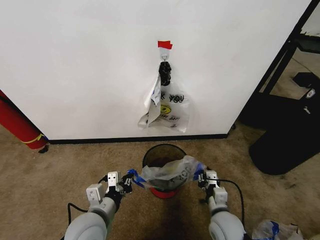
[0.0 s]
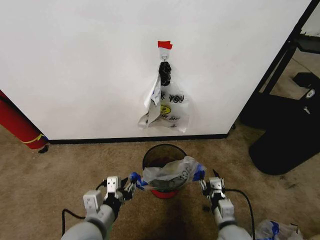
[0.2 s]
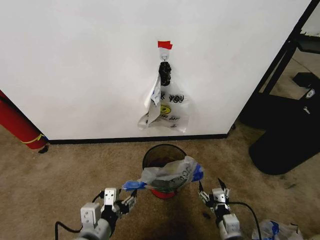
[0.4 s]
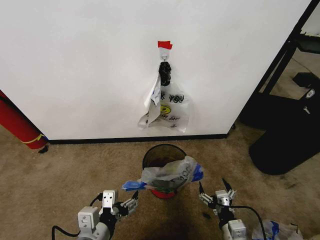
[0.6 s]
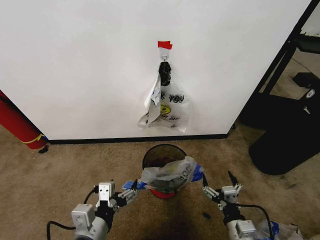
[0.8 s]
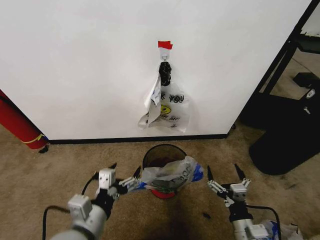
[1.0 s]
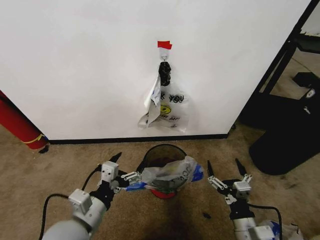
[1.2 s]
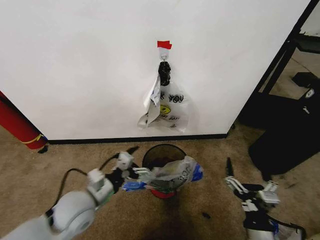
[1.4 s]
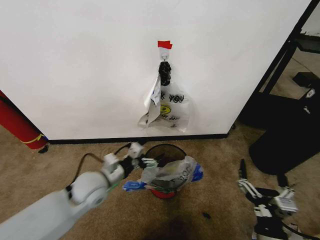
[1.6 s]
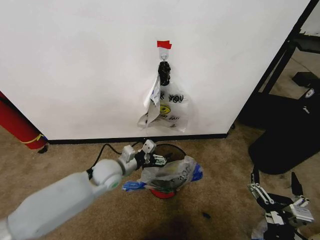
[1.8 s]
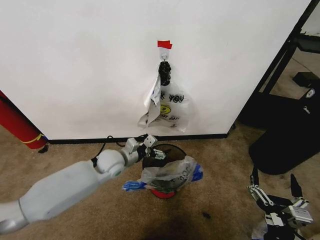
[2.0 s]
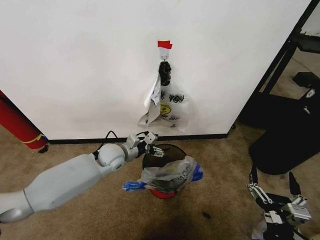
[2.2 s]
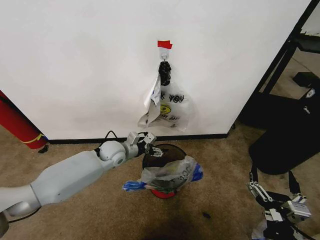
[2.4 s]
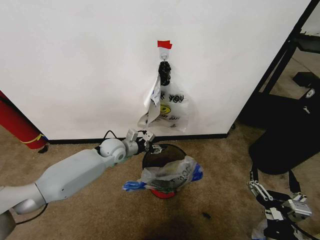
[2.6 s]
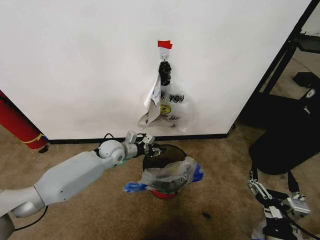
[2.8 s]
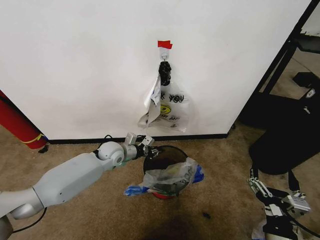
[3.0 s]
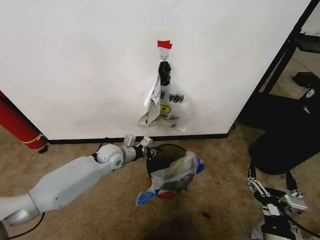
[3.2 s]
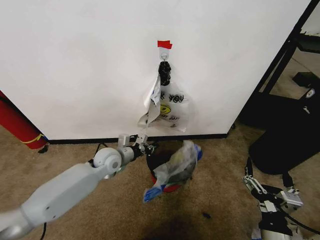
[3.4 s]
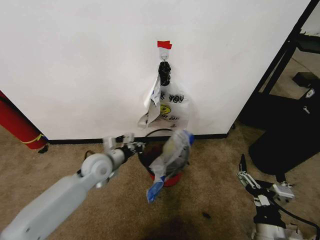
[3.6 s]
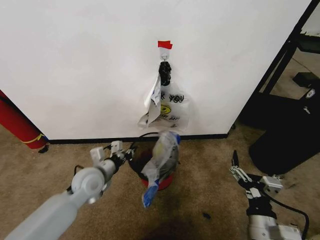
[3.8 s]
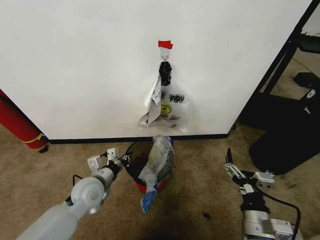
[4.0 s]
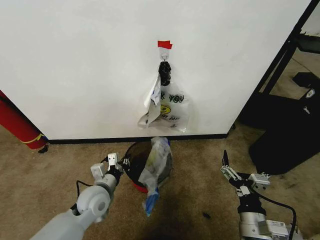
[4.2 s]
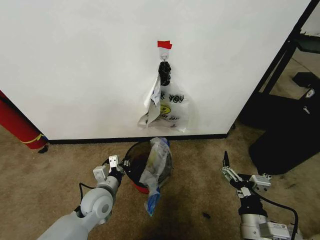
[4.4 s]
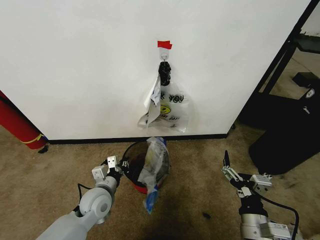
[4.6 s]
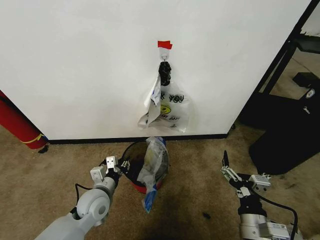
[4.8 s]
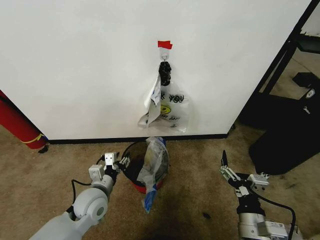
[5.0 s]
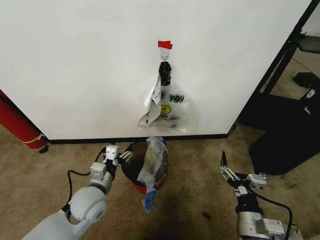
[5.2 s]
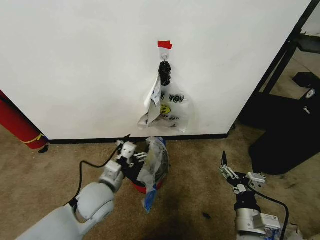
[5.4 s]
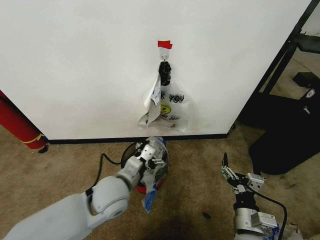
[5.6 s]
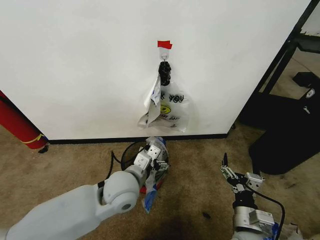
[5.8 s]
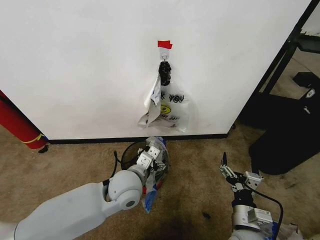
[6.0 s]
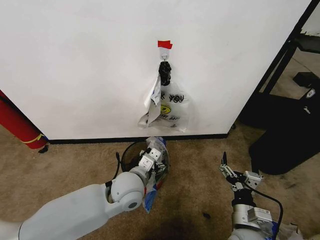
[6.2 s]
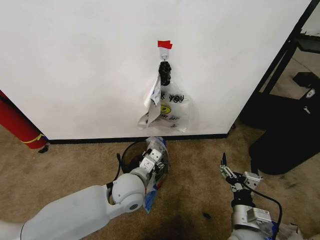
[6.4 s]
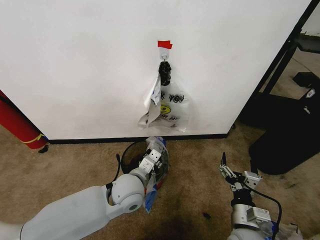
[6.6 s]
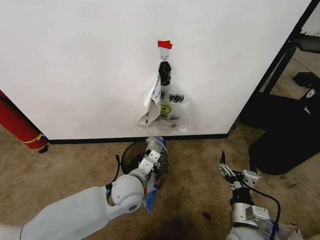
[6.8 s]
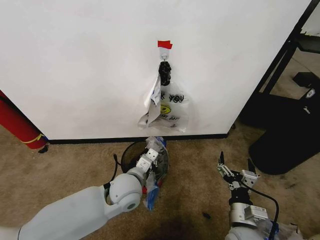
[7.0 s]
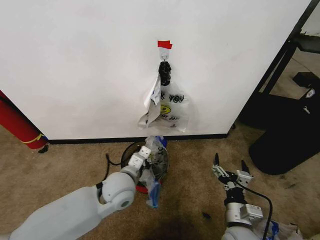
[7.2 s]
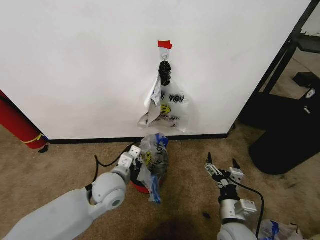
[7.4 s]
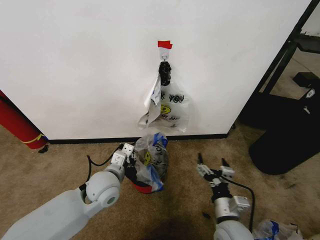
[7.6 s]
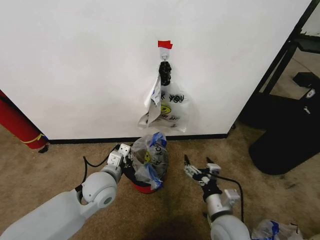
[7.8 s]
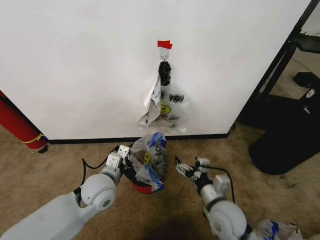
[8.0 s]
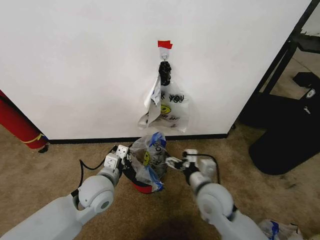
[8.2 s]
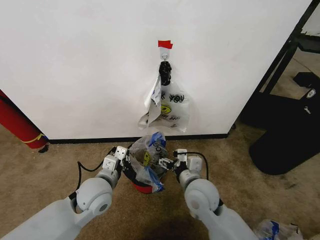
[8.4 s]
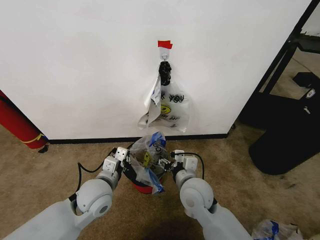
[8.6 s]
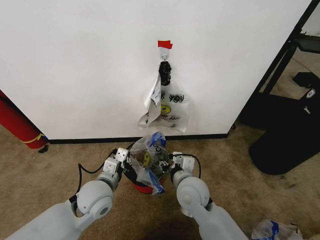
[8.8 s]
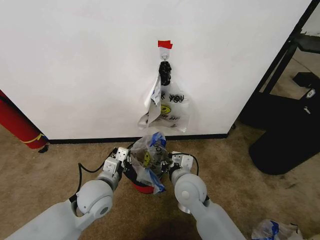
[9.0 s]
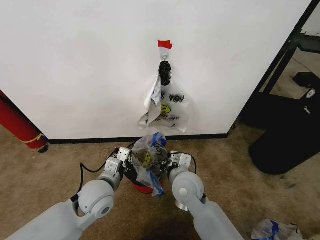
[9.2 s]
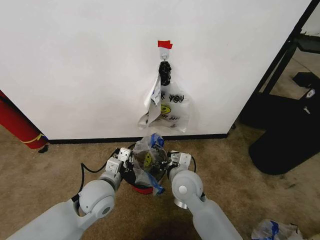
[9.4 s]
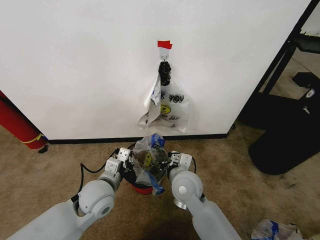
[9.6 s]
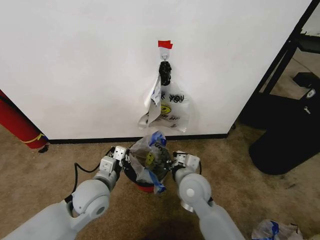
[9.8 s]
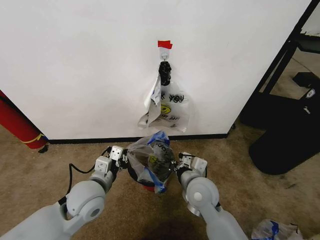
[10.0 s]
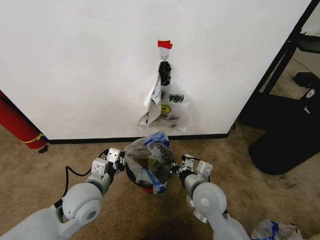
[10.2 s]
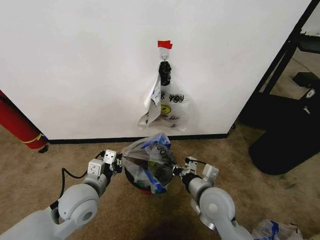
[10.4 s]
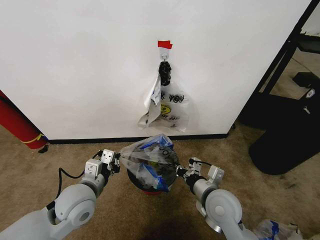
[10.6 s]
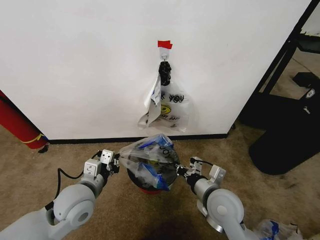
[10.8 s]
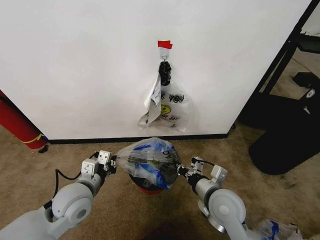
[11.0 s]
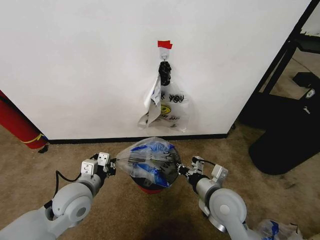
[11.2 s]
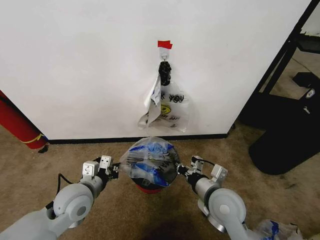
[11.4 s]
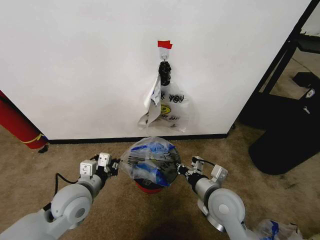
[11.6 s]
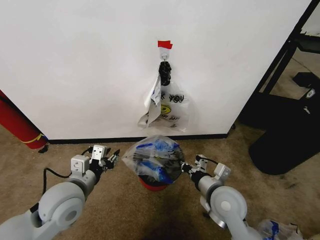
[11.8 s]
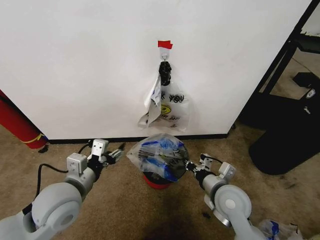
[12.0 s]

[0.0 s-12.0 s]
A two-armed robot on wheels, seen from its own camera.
Task of the whole recording: Pick up the garbage bag from the wall and place it over the trash bin.
0.0 to 1.6 s: The left gripper moves forward, some 10 cm, and opens up. The right gripper goes some 15 cm backward, upward and to the right, and opens its fingers.
1.6 to 3.0 s: The left gripper moves forward, some 15 cm, and closes up.
3.0 to 4.4 s: The left gripper moves backward, about 15 cm; the right gripper ends up some 5 cm from where it was.
4.4 to 6.0 s: The left gripper heads to the right and upward, covering some 15 cm, and opens up.
6.0 to 7.6 s: The left gripper goes about 5 cm to the left, and closes.
7.6 to 9.0 s: The right gripper heads forward, to the left and upward, covering about 15 cm, and closes.
9.0 to 10.4 s: The right gripper moves to the right, some 5 cm.
10.4 to 12.0 s: The left gripper goes about 5 cm upward, and opens.

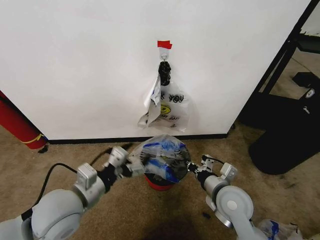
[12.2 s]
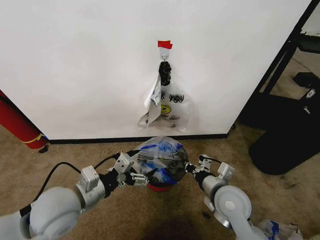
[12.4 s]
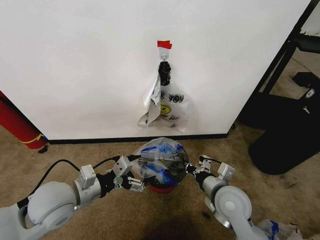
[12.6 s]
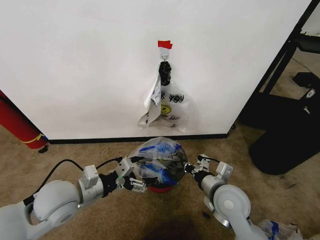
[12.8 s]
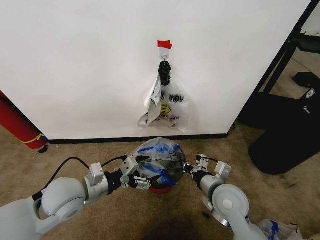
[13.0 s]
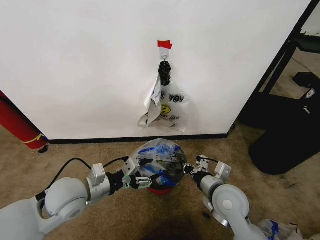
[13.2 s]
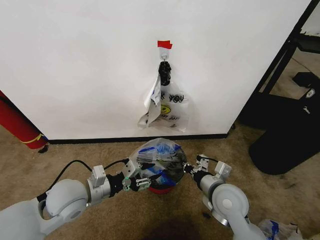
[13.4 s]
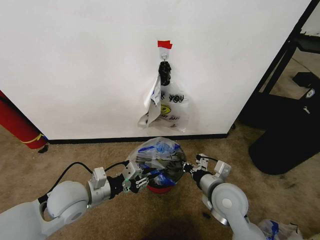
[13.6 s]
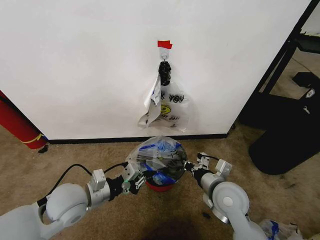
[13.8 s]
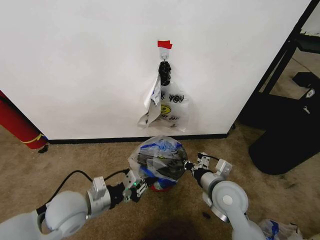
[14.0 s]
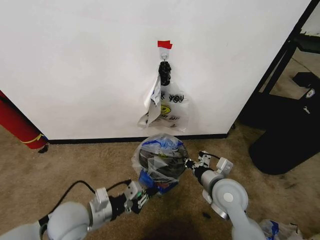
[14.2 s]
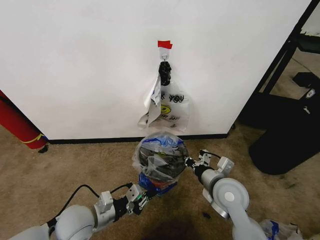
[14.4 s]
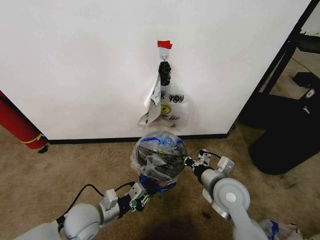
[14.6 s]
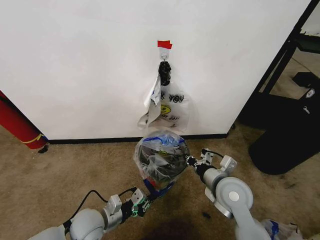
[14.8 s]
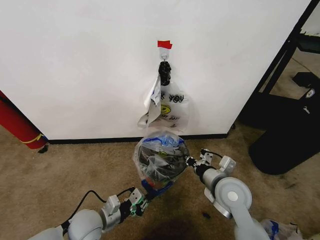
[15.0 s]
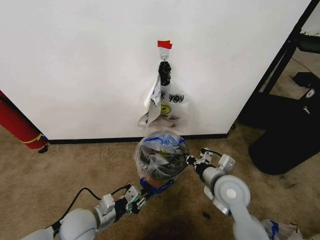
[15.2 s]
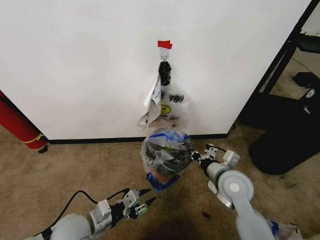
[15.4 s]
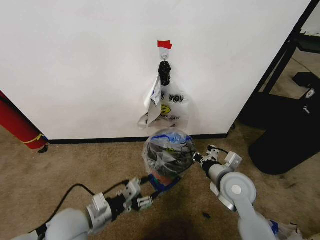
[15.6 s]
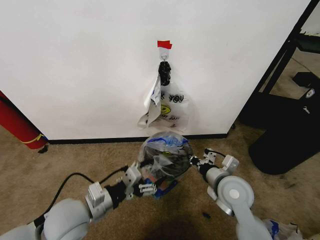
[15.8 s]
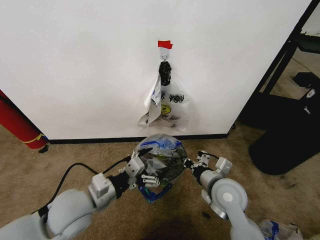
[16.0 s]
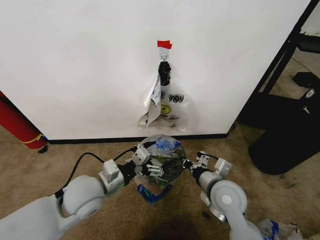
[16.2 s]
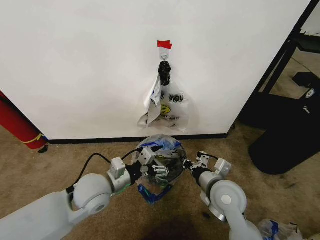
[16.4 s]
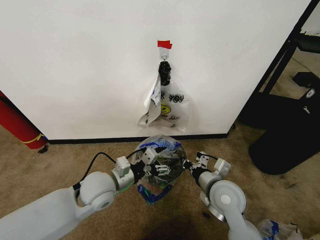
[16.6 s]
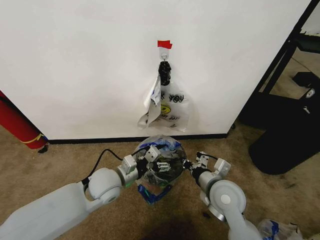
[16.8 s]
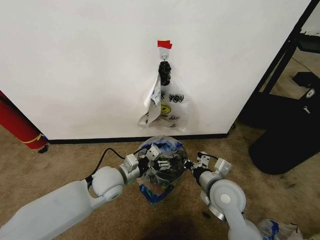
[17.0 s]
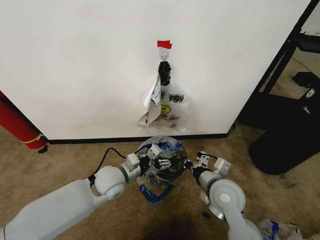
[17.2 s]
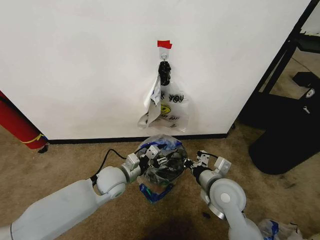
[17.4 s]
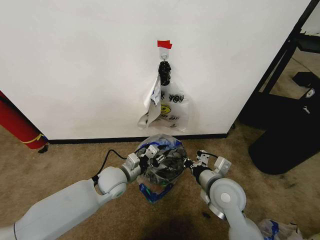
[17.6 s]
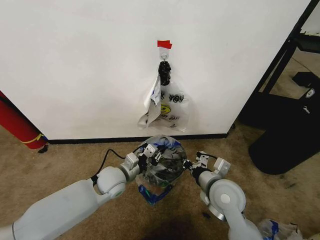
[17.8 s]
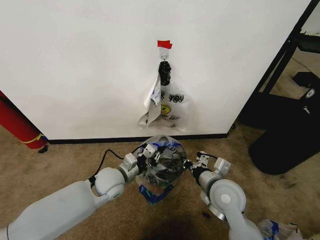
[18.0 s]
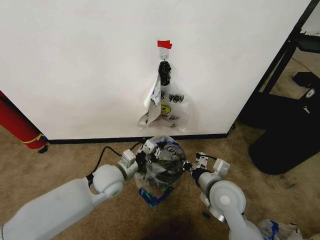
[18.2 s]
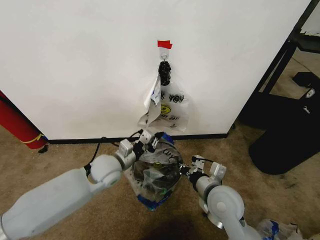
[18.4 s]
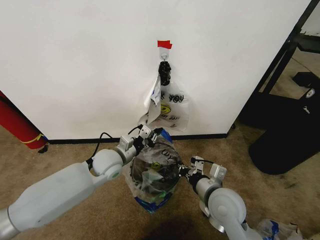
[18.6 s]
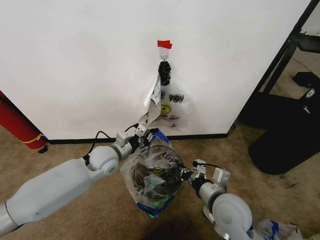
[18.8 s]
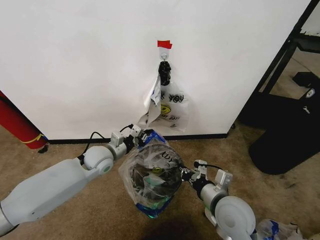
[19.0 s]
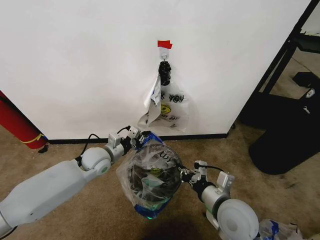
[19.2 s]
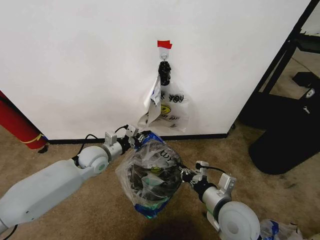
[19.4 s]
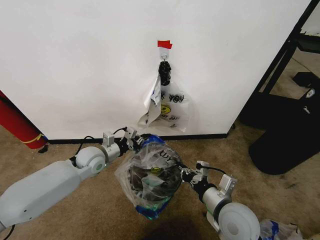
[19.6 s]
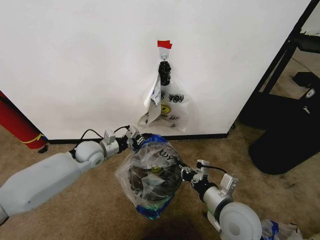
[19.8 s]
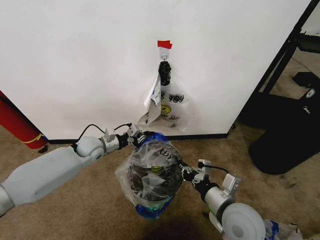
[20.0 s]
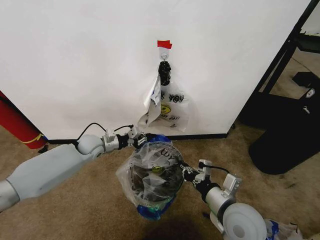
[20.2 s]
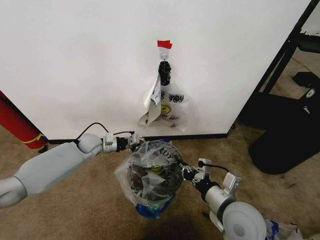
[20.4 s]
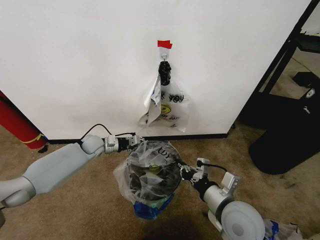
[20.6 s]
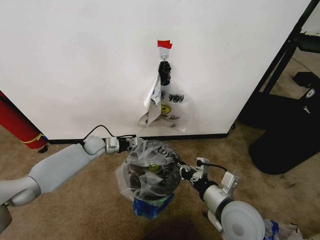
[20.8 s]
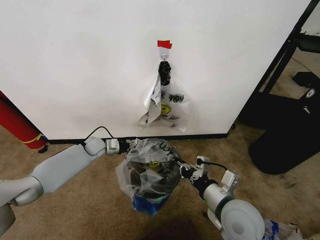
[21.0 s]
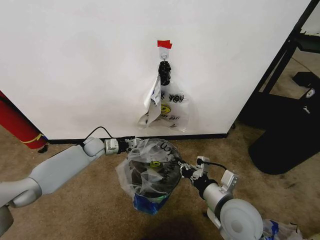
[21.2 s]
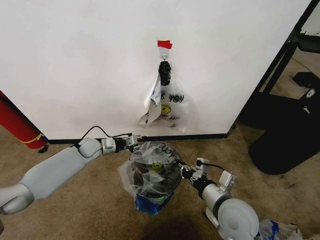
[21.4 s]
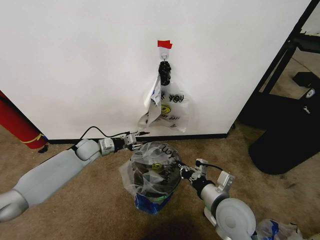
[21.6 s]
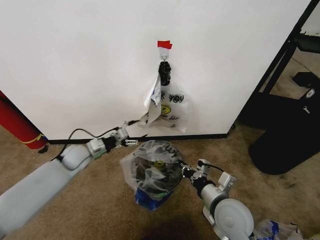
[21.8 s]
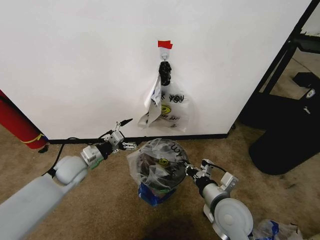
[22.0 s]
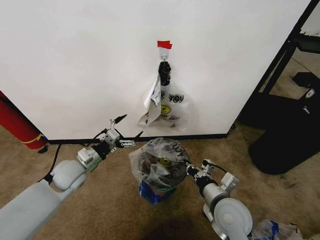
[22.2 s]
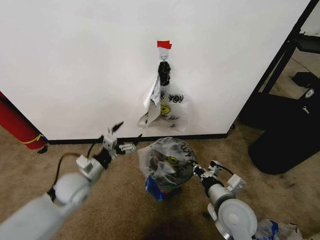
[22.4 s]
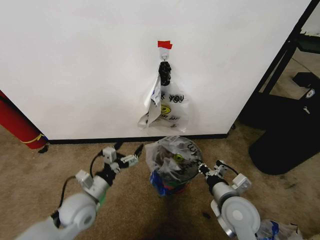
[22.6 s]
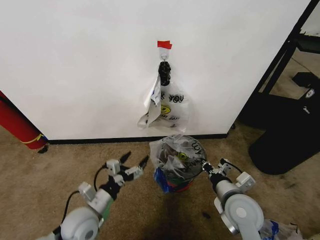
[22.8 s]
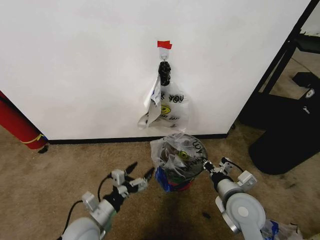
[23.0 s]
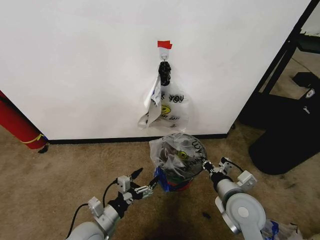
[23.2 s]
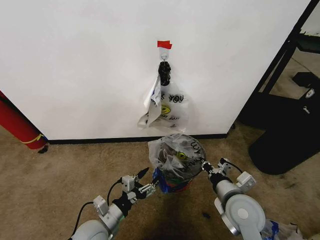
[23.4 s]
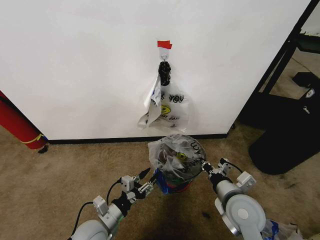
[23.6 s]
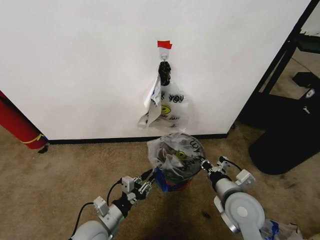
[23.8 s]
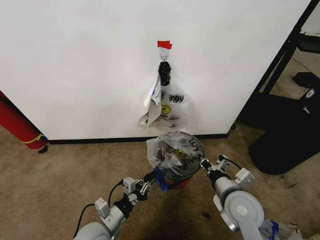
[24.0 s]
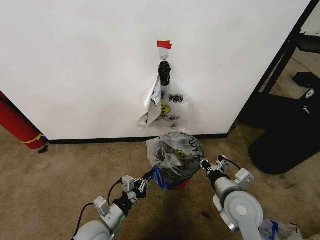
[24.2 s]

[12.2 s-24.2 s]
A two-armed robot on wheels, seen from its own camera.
Task of the whole recording: Pick up the garbage bag from the wall and place it over the trash bin.
12.2 to 13.8 s: The left gripper travels downward by approximately 5 cm, and closes up.
13.8 to 15.2 s: The left gripper shifts approximately 10 cm downward.
15.2 to 16.6 s: The left gripper goes approximately 15 cm forward, upward and to the right, and opens up.
16.6 to 18.2 s: The left gripper closes up.
18.2 to 19.8 s: The left gripper shifts roughly 15 cm forward and to the left. Meanwhile the right gripper is displaced backward by approximately 5 cm.
19.8 to 21.2 s: The left gripper is displaced forward and downward by some 10 cm.
21.2 to 22.6 s: The left gripper heads backward, covering approximately 25 cm, and opens its fingers.
22.6 to 24.2 s: The left gripper is displaced backward and downward by approximately 10 cm, and closes its fingers.
